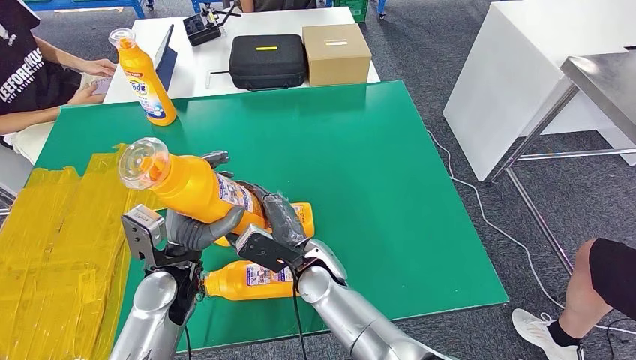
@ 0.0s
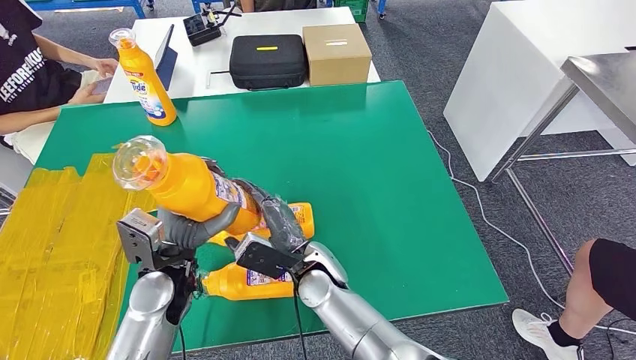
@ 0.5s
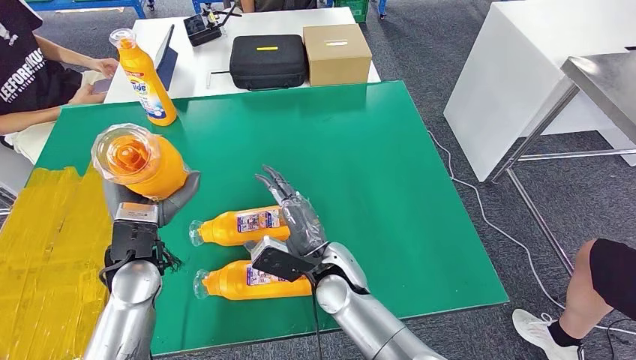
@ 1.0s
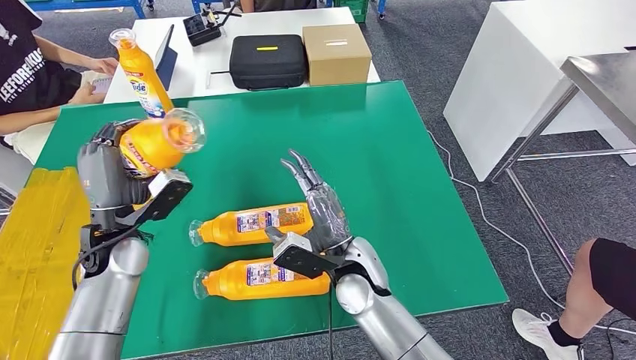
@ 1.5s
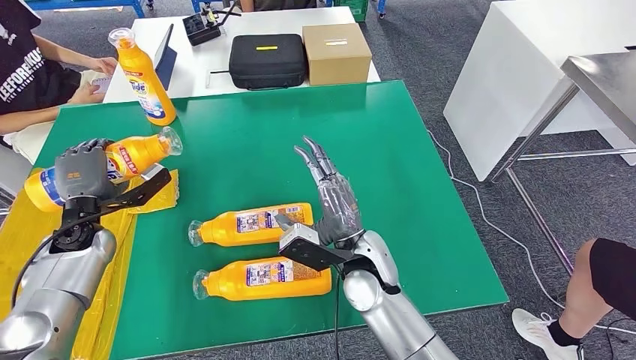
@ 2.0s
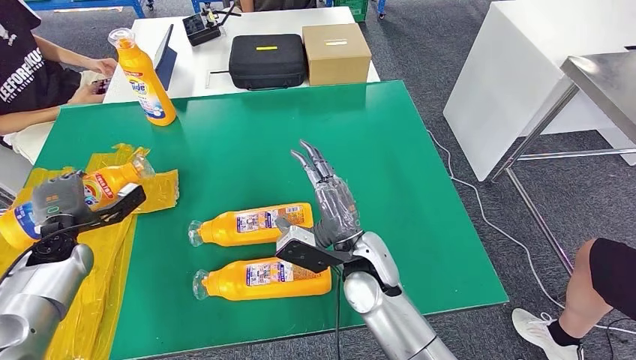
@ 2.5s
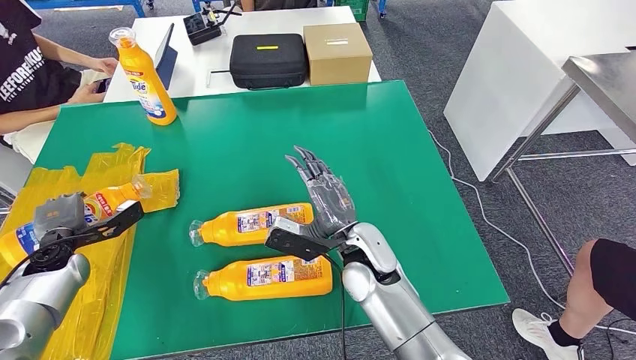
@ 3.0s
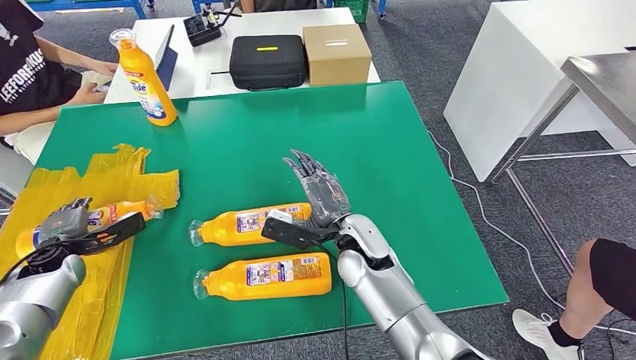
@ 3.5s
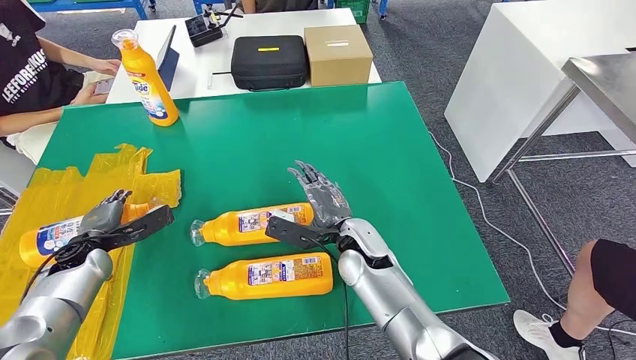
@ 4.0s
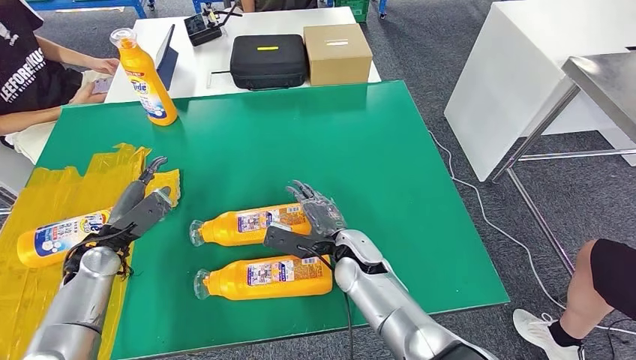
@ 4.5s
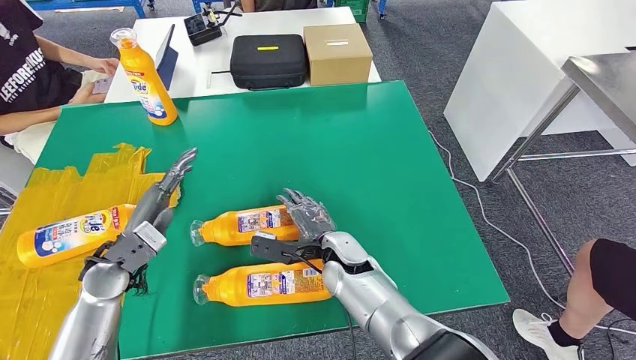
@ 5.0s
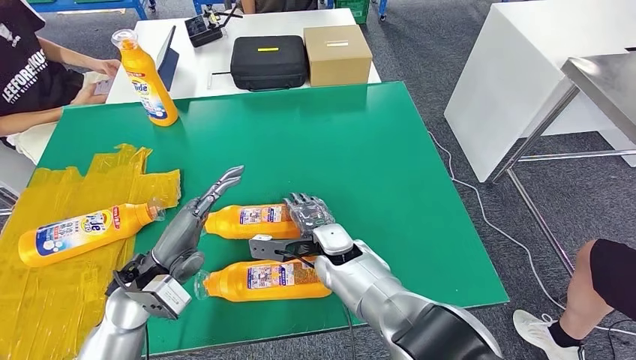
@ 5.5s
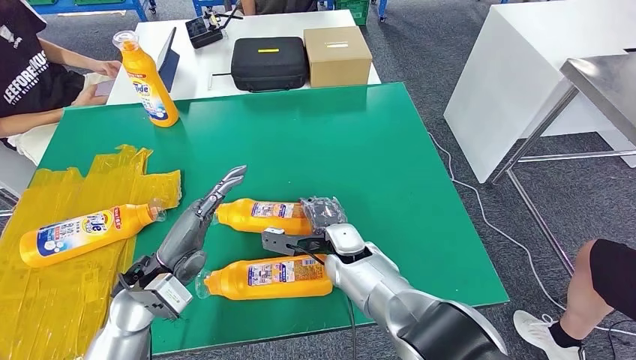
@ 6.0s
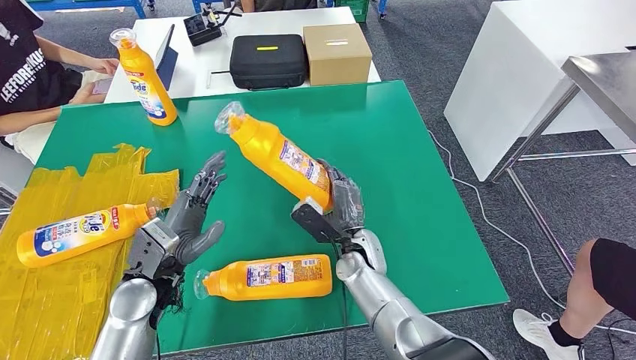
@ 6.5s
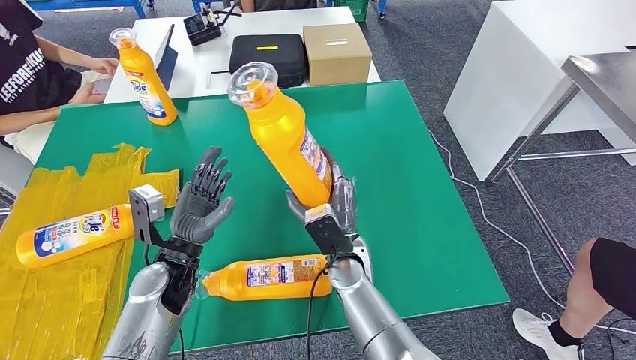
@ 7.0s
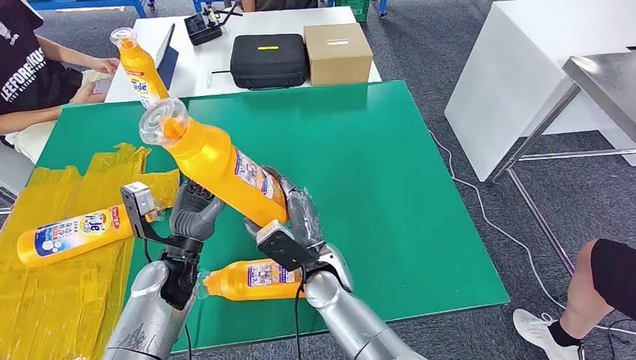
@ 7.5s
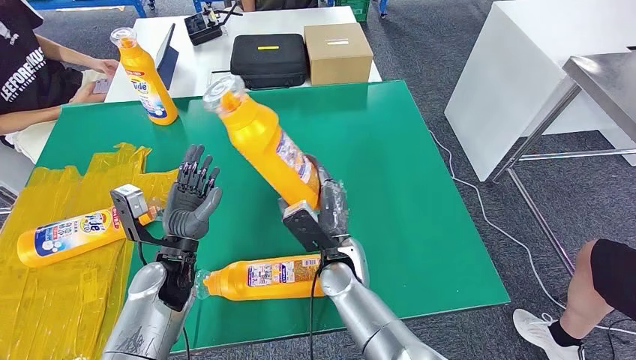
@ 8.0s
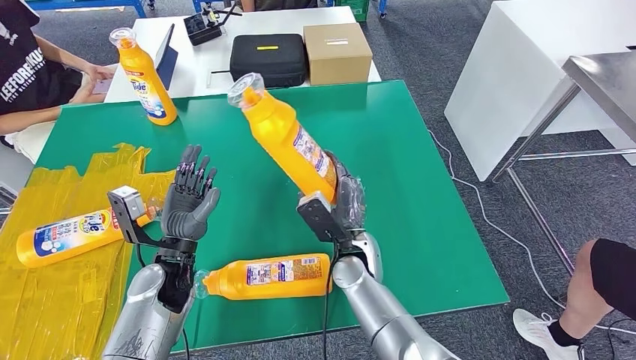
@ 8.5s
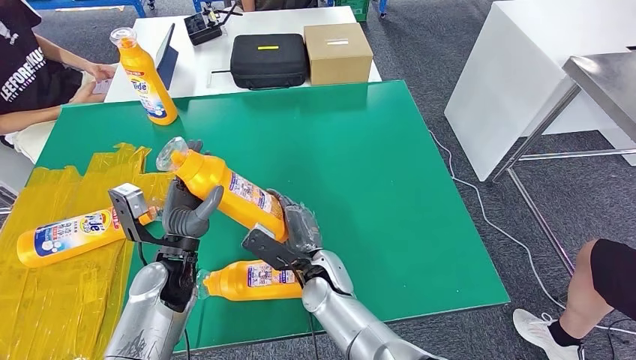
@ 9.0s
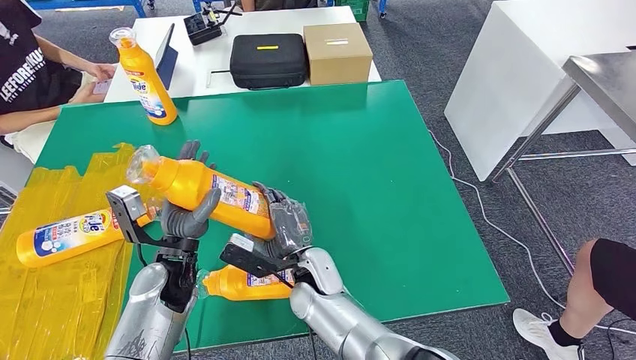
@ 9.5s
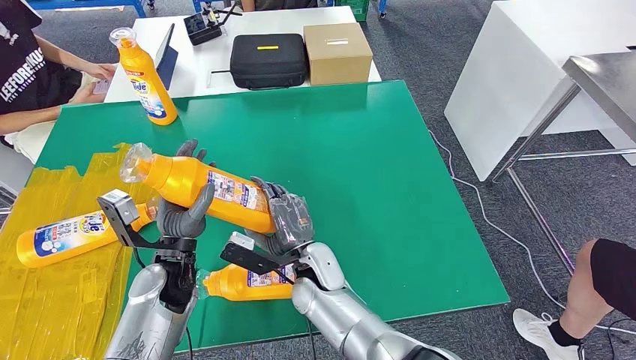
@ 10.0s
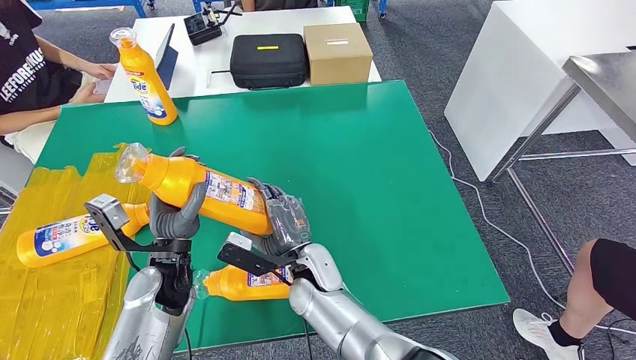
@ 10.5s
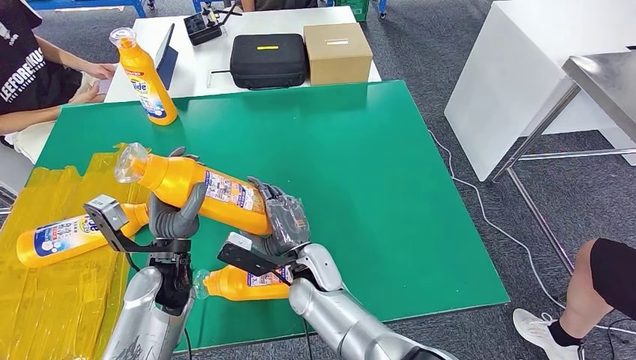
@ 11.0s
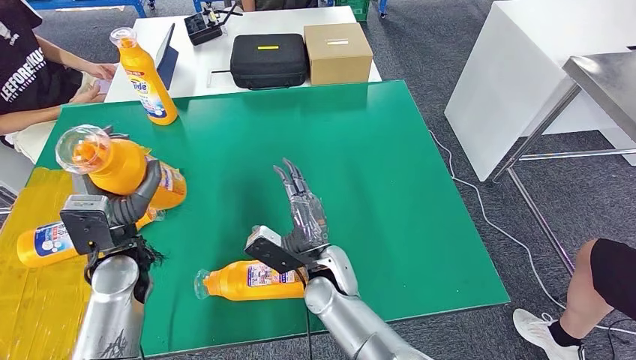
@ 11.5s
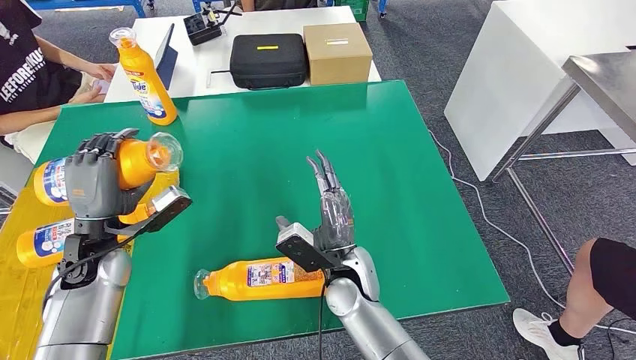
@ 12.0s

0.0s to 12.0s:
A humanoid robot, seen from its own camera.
Step, 0.5s to 5.0s: Flip the fast-moving consumer goods bottle to the front side.
Step, 5.5s to 10.0s: Pick up the fast-moving consumer goods bottle from the table.
2.0s to 4.0s: The right hand ends up approximately 5 cm from where it was. Meanwhile the left hand is displaced downward by roughly 5 cm.
4.0s to 6.0s: The left hand heads to the right, backward and upward, covering about 20 cm.
8.0s to 10.0s: The right hand moves roughly 5 cm.
10.0s to 12.0s: The left hand goes approximately 10 cm to the left, while the right hand goes roughly 5 cm to the right.

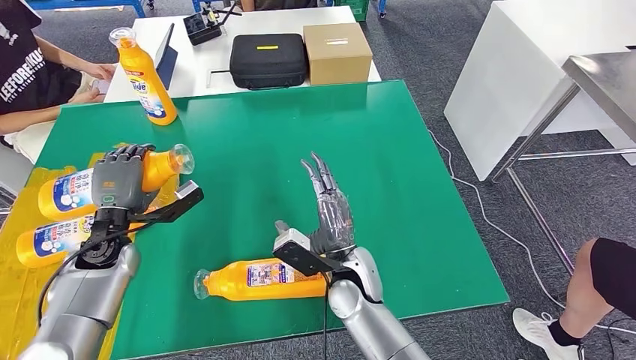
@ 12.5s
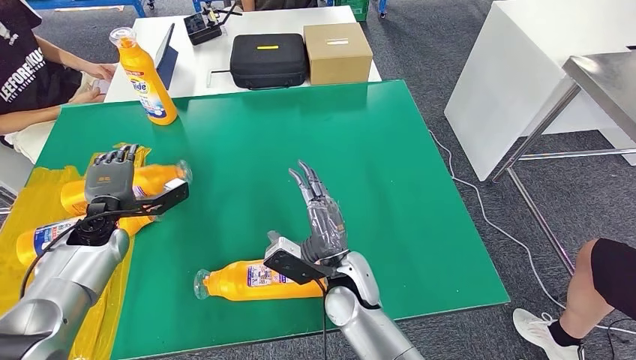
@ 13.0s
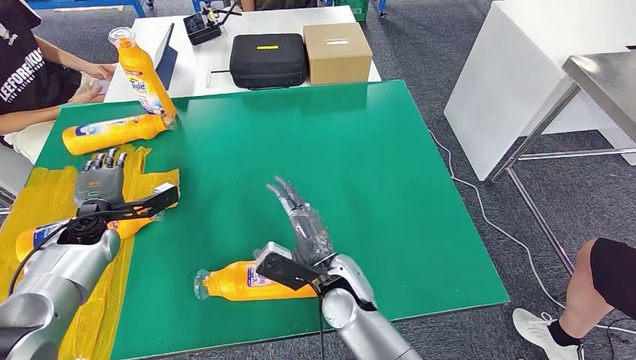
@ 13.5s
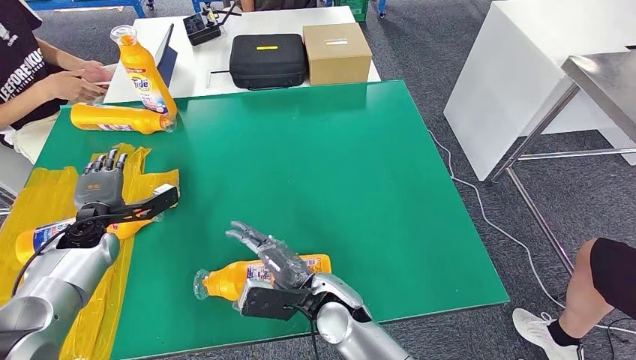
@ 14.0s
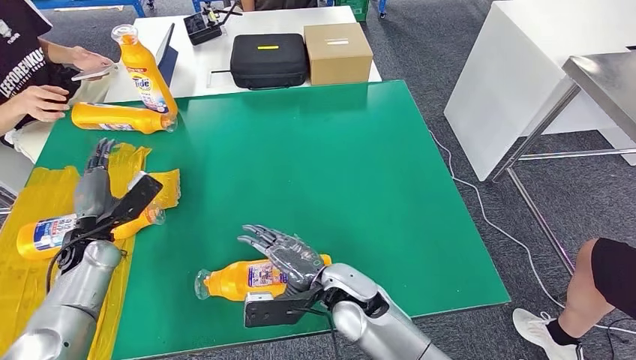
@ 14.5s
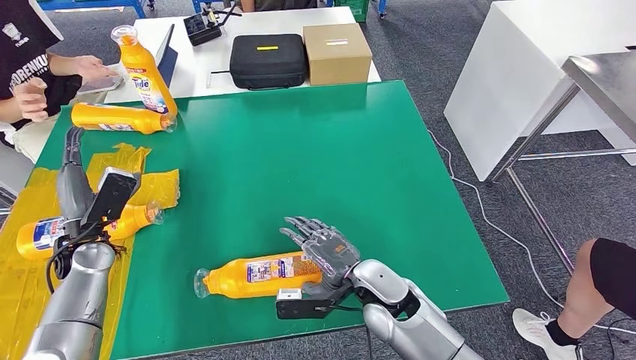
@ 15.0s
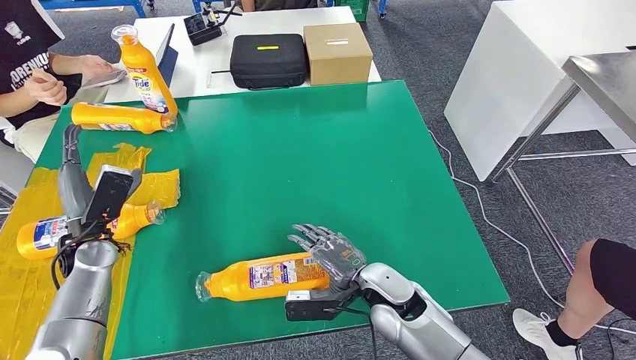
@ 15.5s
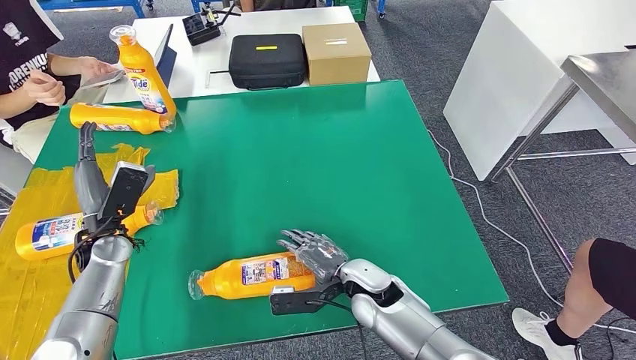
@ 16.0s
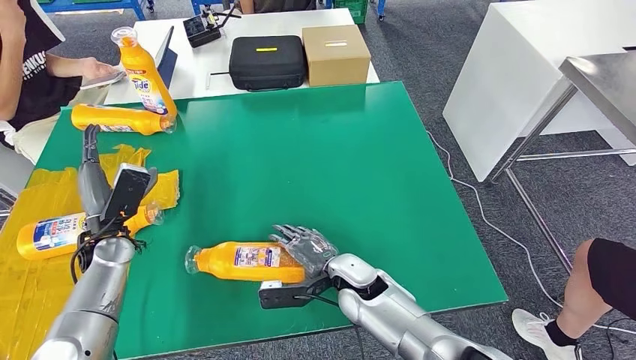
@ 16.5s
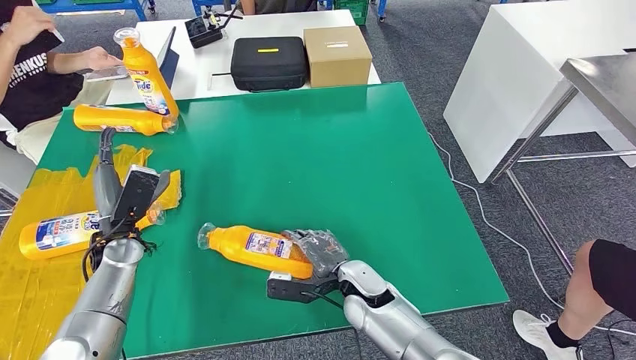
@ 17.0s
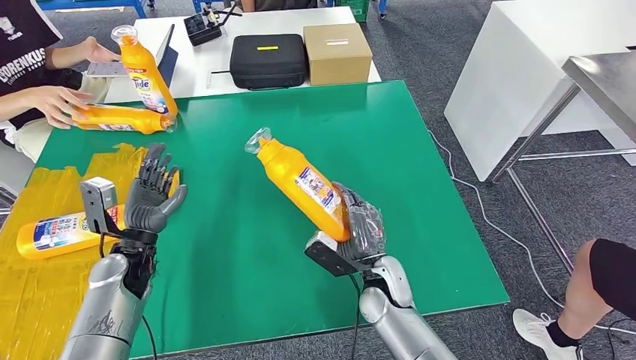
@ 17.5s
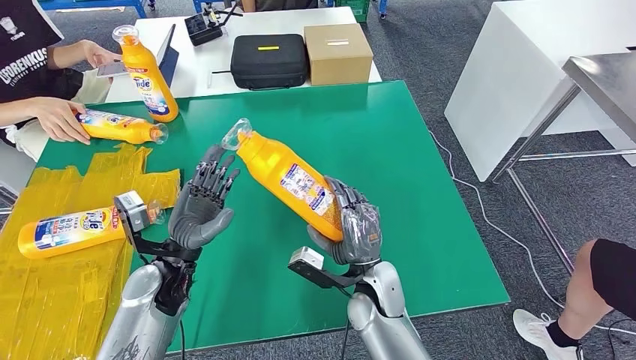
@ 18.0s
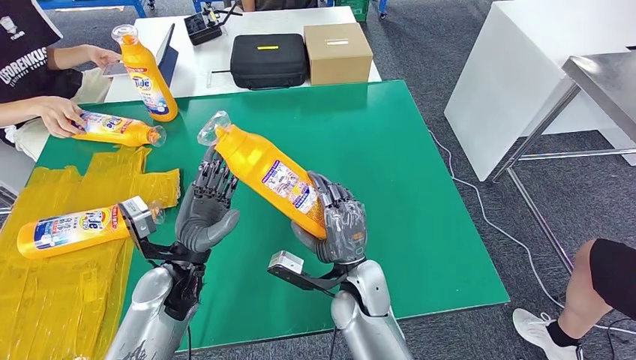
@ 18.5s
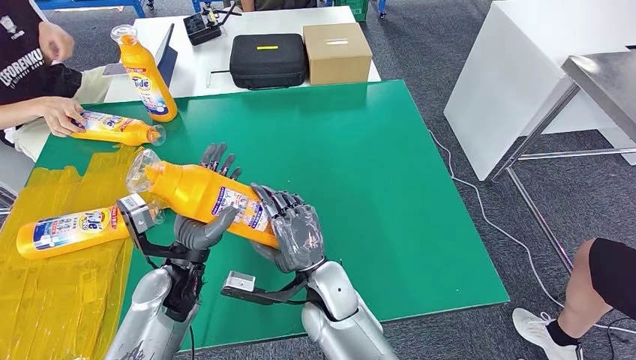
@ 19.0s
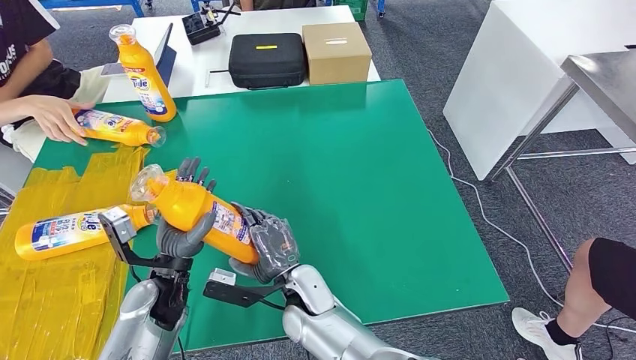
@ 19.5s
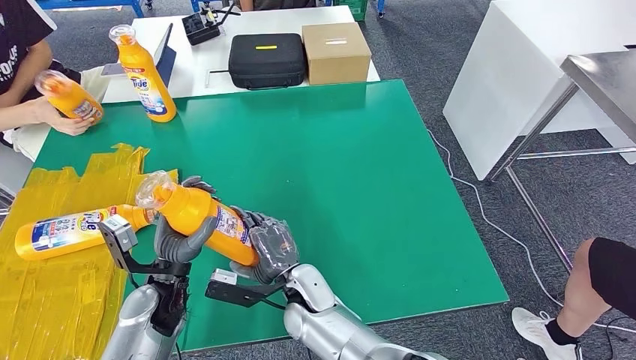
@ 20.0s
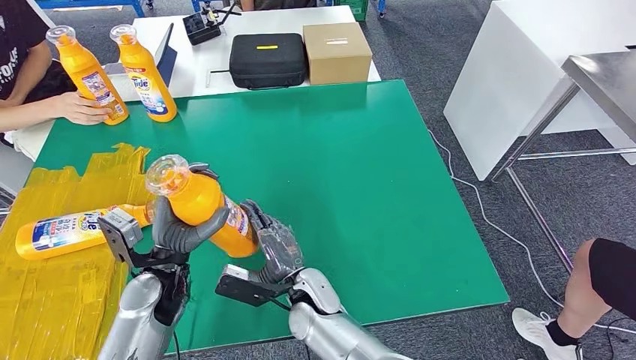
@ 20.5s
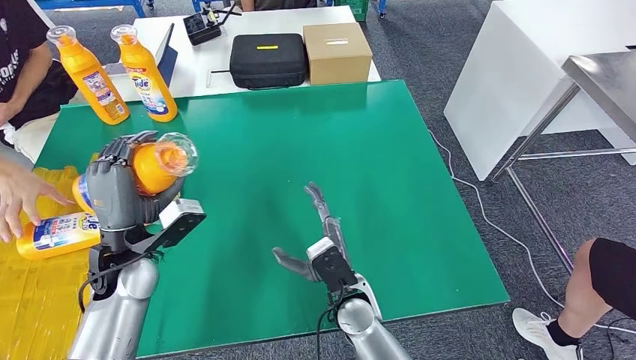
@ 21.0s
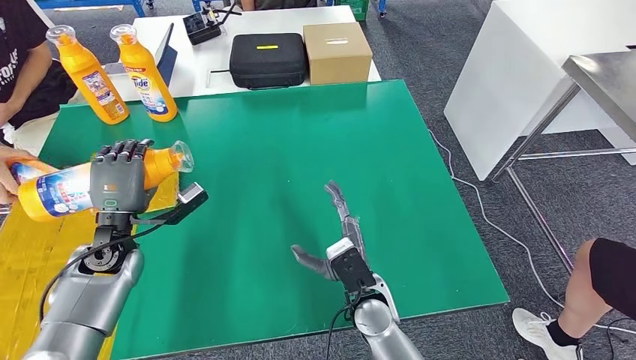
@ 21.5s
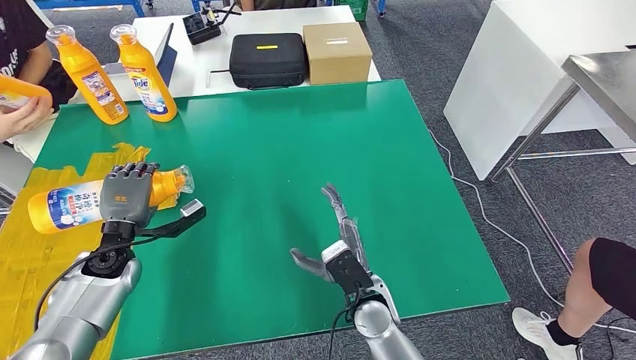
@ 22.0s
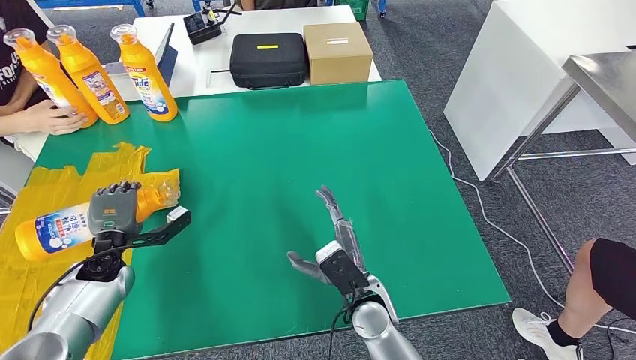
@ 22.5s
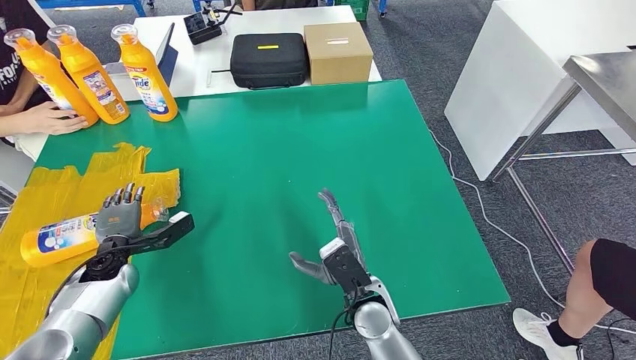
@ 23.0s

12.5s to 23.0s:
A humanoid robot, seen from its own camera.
Step, 16.5s to 20.0s: Pick up the fast-moving consumer goods bottle from the table.
12.5s to 14.5s: The left hand moves to the left, approximately 5 cm.
19.0s to 21.0s: The left hand moves to the left, approximately 5 cm; the right hand shifts by about 5 cm.
21.0s to 23.0s: The left hand is displaced downward, to the left and forward by approximately 15 cm.
